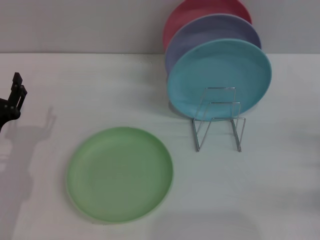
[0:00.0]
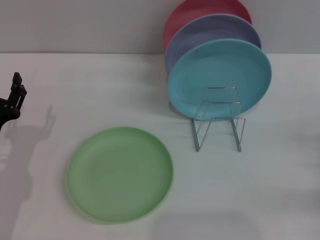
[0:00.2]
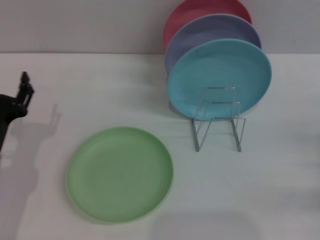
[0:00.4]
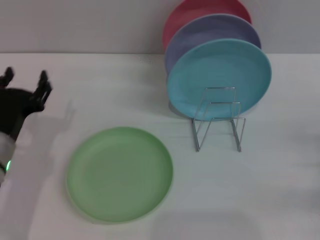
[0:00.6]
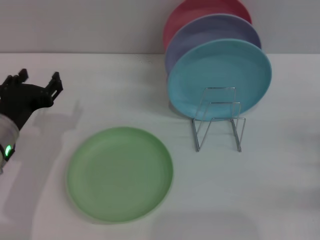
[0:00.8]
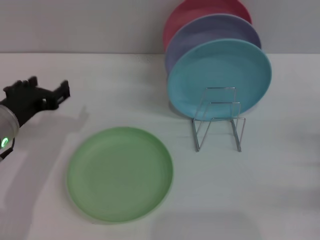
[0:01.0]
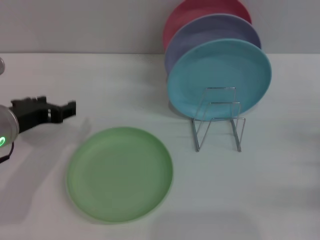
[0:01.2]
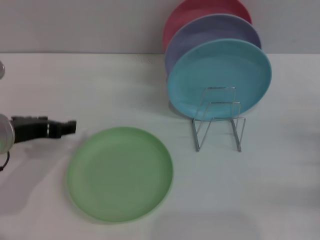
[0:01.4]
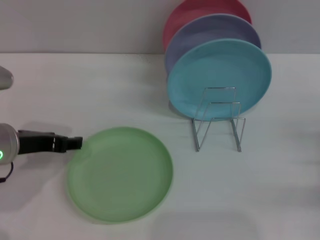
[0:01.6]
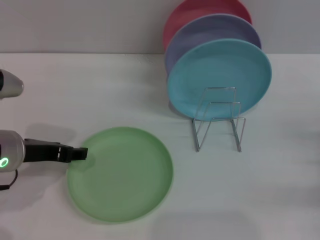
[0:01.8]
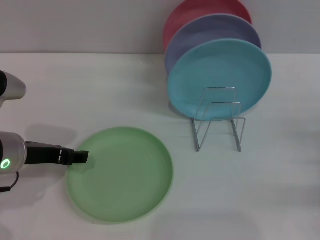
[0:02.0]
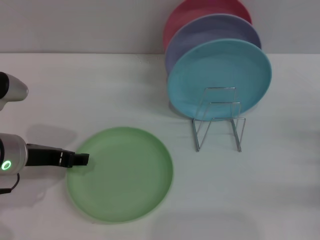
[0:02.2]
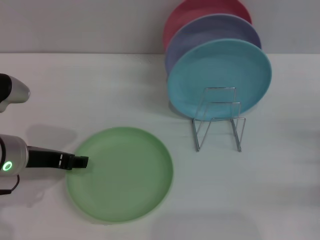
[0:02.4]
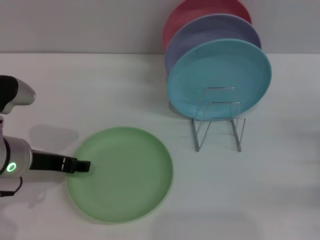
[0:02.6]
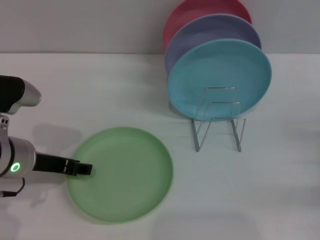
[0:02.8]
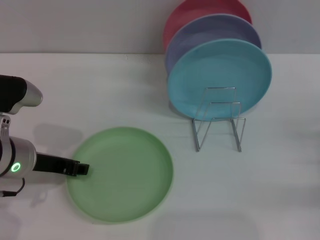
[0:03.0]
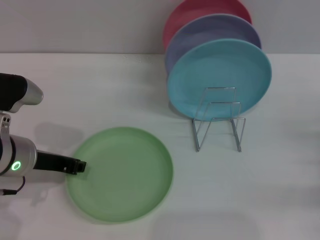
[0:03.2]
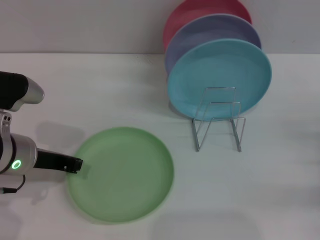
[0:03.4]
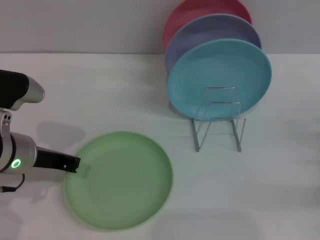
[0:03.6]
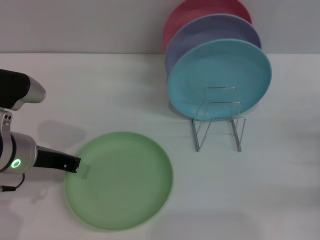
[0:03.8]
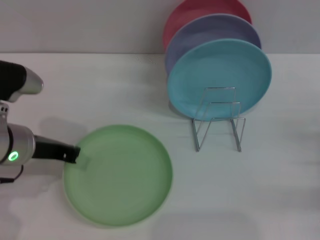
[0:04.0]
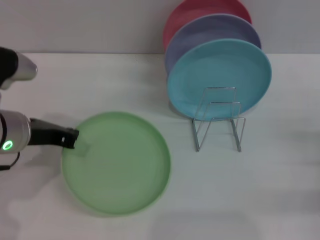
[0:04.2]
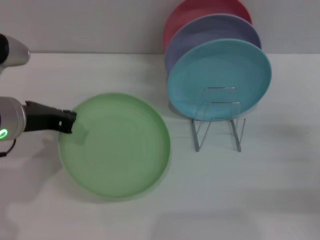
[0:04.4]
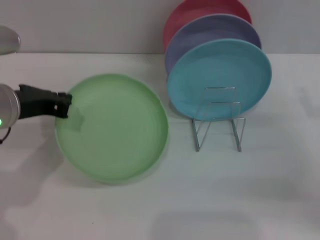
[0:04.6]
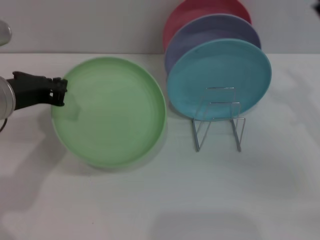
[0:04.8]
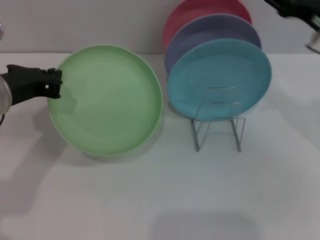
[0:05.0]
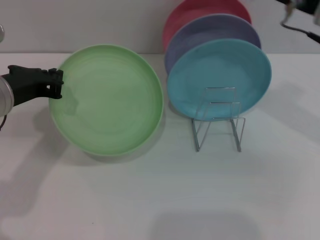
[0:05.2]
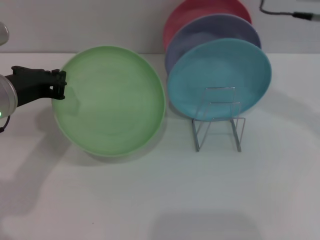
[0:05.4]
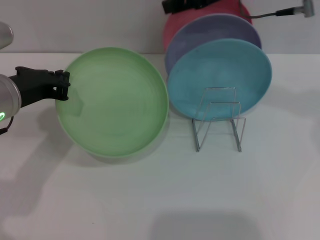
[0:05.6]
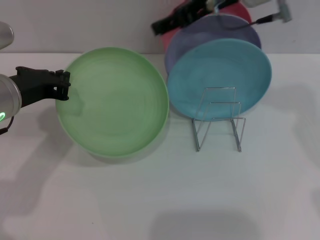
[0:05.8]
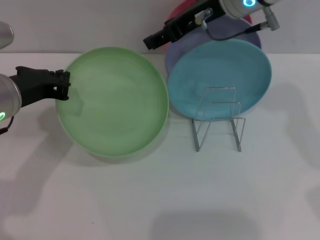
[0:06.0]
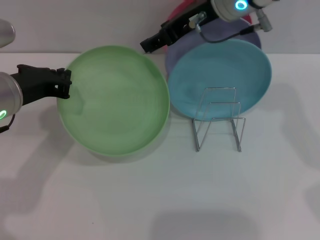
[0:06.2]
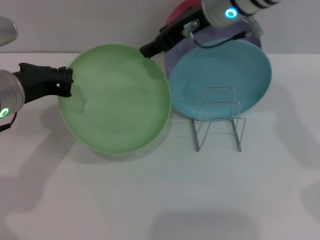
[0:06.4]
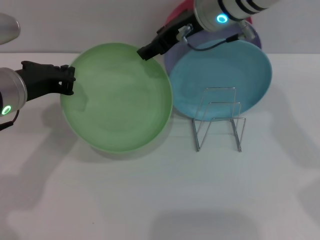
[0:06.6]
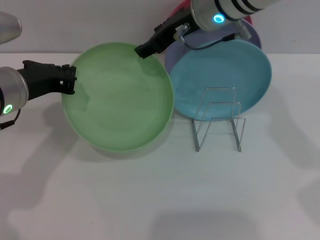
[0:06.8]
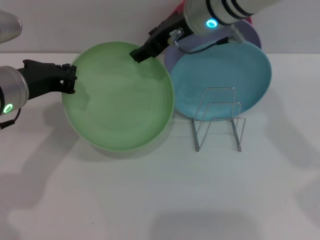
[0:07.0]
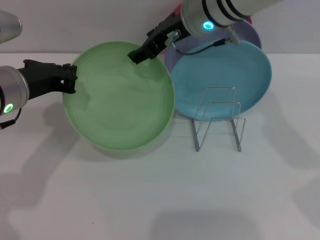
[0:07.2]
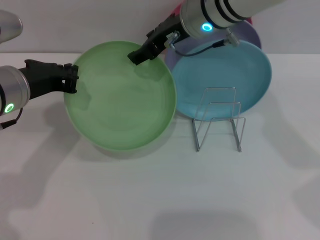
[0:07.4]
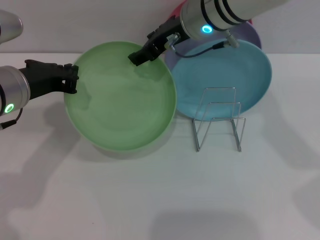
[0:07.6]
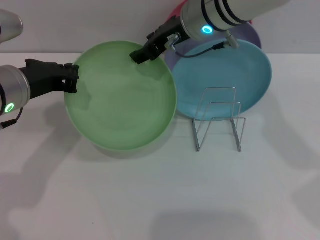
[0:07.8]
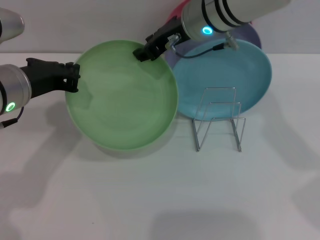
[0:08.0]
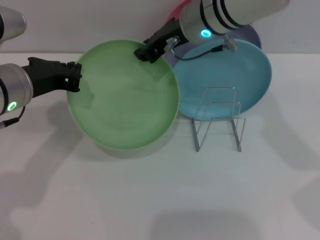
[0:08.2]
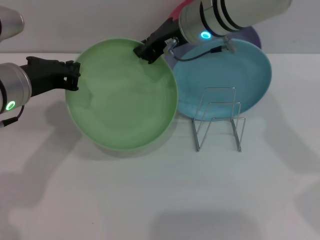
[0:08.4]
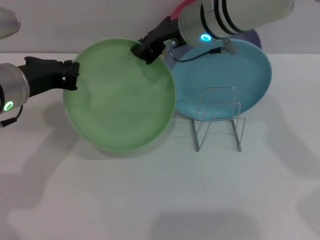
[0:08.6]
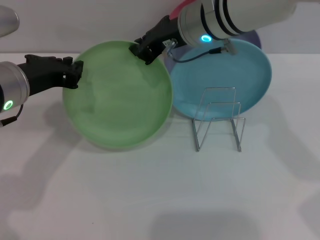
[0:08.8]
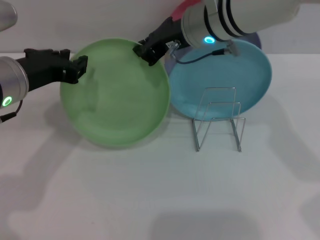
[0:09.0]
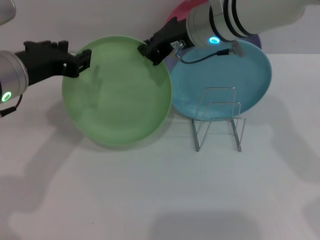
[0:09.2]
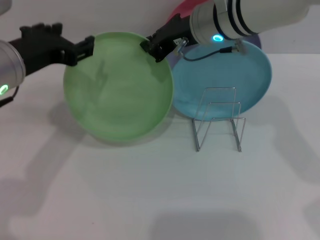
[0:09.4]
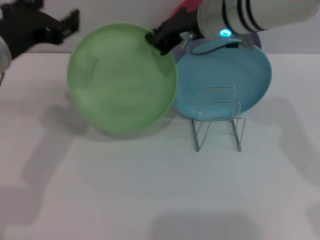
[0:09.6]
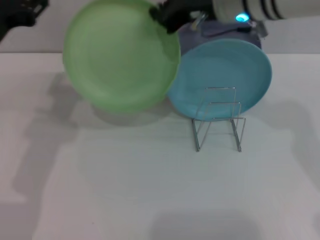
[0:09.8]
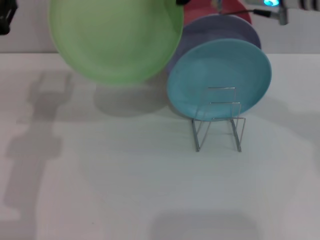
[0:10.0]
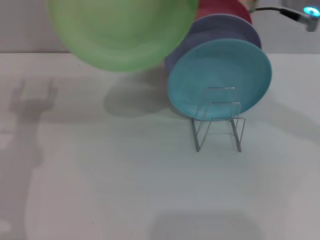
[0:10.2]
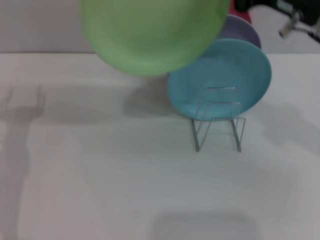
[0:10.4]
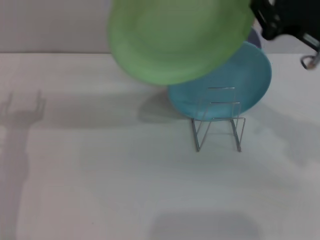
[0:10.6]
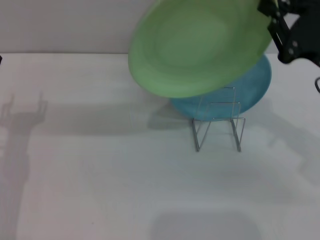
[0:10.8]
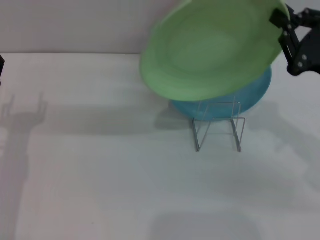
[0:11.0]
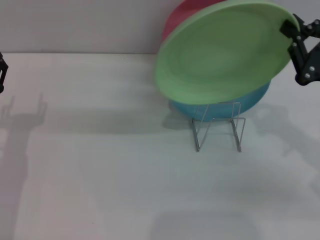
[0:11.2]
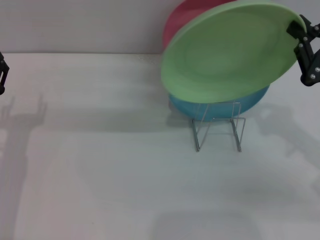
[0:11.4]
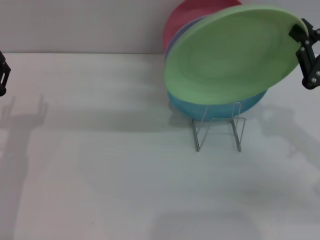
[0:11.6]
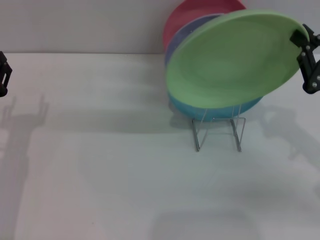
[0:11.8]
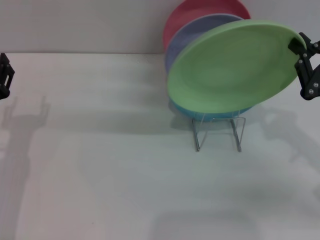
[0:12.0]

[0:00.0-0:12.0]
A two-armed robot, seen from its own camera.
Task of the whole recording: Grip the plate with one hand, pass it to the other, then set it on the shelf.
Step, 0:00.0 to 0:04.8: Pick up the plate with the left gripper.
Step, 0:05.0 to 0:09.2: Pass the plate from the left gripper to the right gripper.
0:00.0 to 0:01.6: The left gripper travels upward by about 10 cm.
0:01.6 to 0:03.0: The grippers move only a little.
0:03.0 to 0:04.4: The left gripper goes about 5 cm upward, and closes up.
0:04.4 to 0:06.0: The right gripper heads to the left, upward and forward, covering approximately 35 cm.
0:06.0 to 0:07.6: The right gripper shifts by about 5 cm.
0:07.6 to 0:09.0: The right gripper closes up.
0:09.0 to 0:10.4: The left gripper goes approximately 10 cm downward and to the left, and opens up, while the right gripper is displaced to the right and backward by some 15 cm.
0:10.4 to 0:12.0: The right gripper is displaced downward, to the right and backward by some 15 cm.

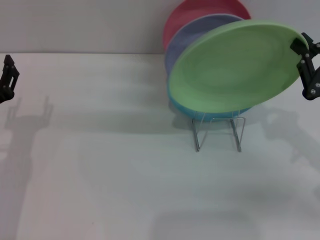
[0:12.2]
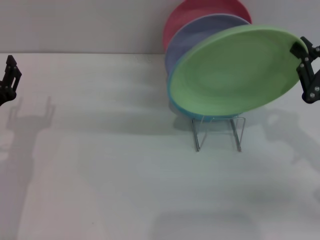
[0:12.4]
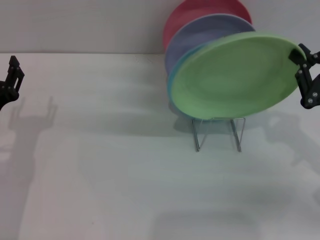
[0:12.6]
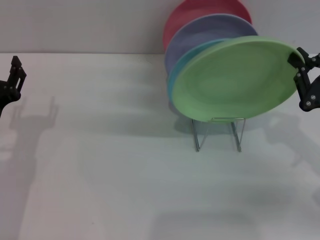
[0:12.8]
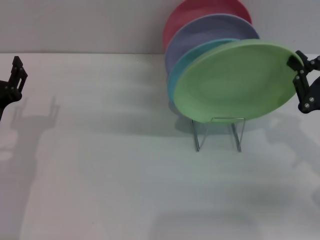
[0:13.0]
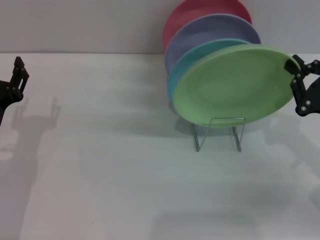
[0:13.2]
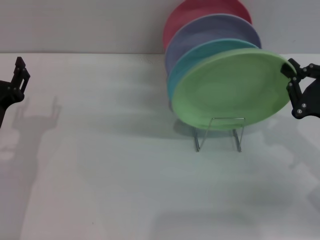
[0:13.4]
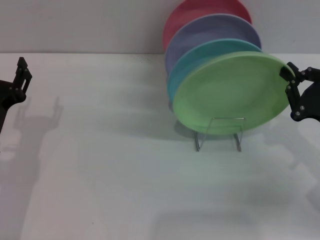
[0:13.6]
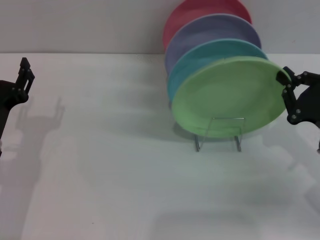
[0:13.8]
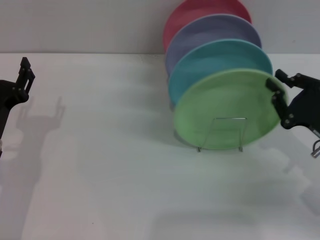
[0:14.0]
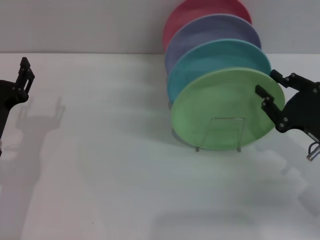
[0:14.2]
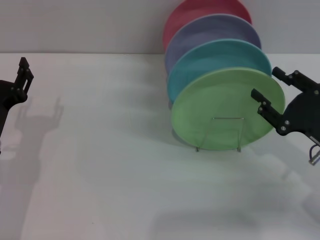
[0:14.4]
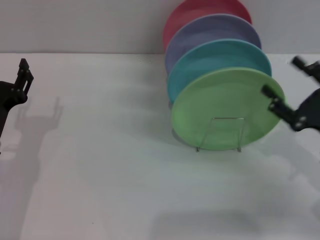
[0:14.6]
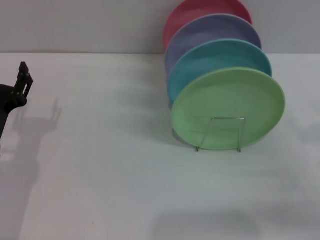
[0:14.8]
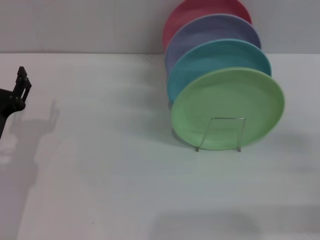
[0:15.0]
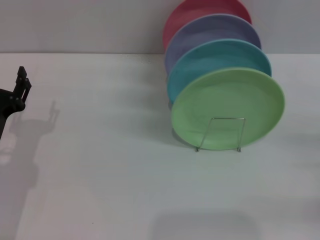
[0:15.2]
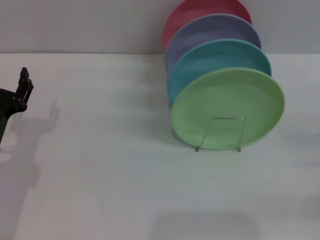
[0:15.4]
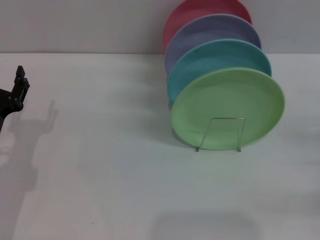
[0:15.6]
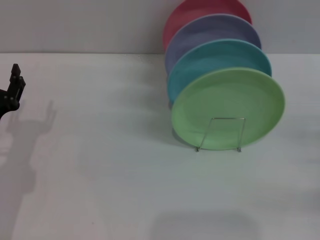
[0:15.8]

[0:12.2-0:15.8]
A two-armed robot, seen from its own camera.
Task of the whole recording: Grip the plate with one hand, pass it to the other, then set it on the shelf.
Step, 0:12.2 to 0:14.4: Place the plate on the shelf with the right gripper.
0:12.2 to 0:14.0: There are only small adjustments of the grippers.
0:14.0 to 0:15.8: The right gripper travels to the right by roughly 10 cm, and opens.
